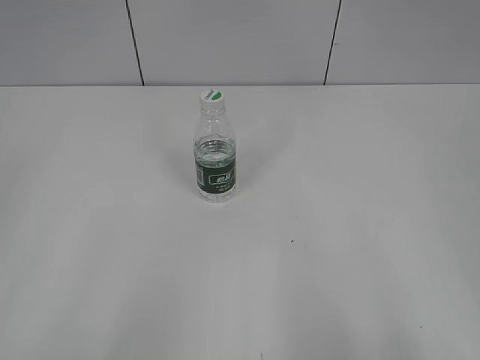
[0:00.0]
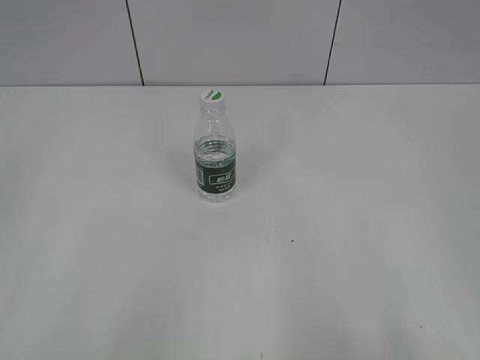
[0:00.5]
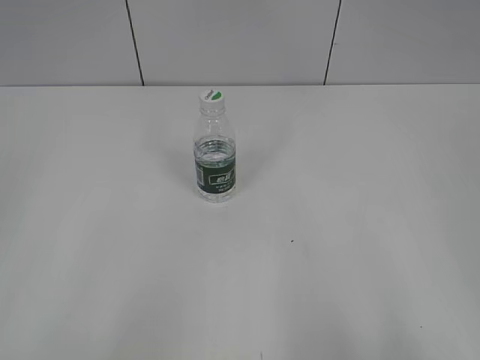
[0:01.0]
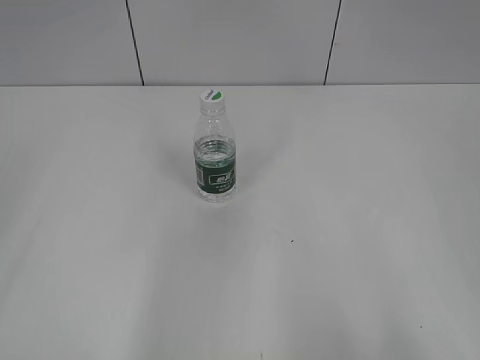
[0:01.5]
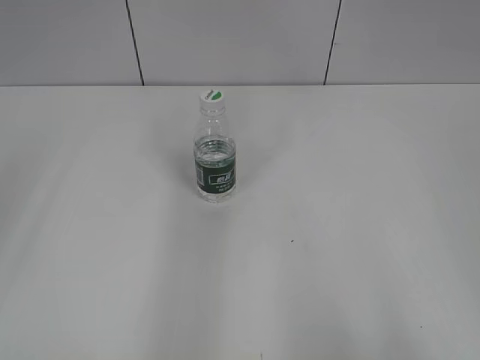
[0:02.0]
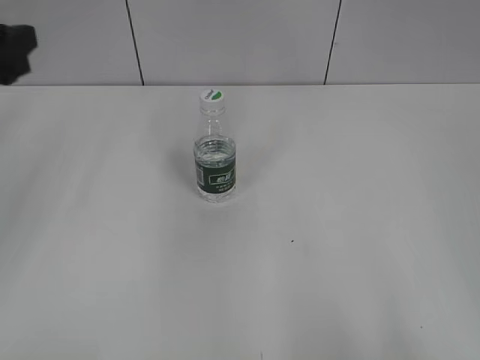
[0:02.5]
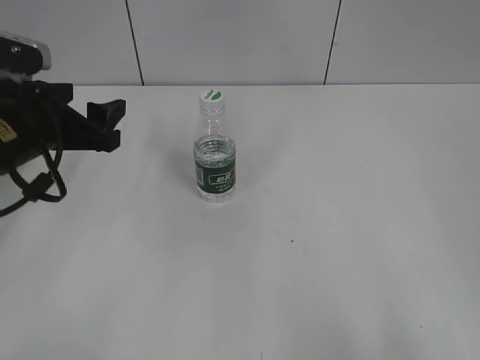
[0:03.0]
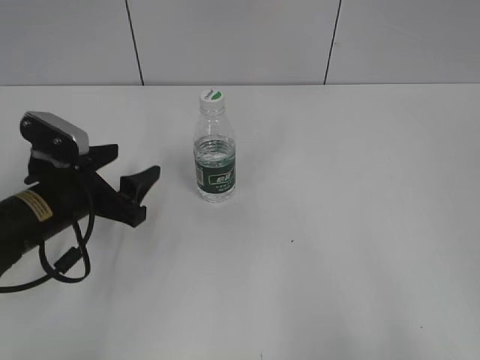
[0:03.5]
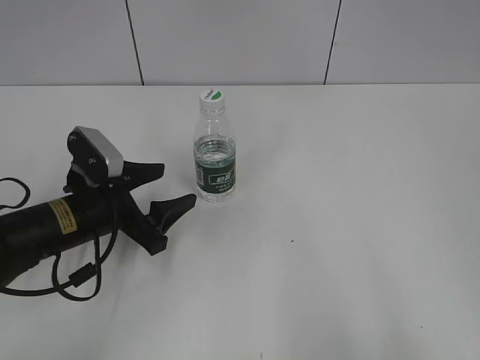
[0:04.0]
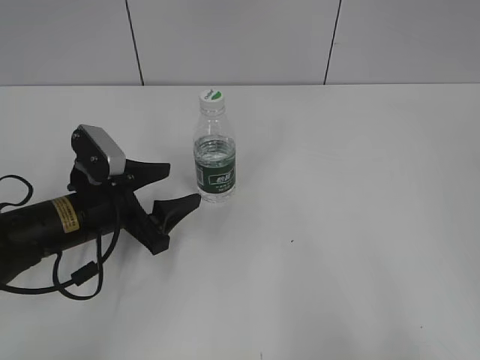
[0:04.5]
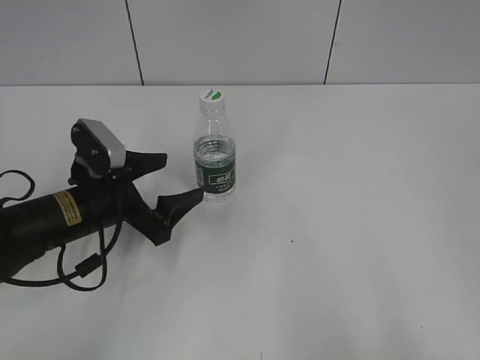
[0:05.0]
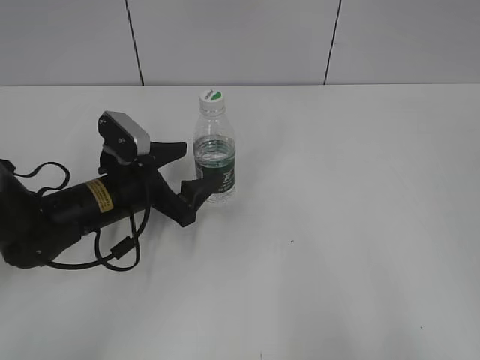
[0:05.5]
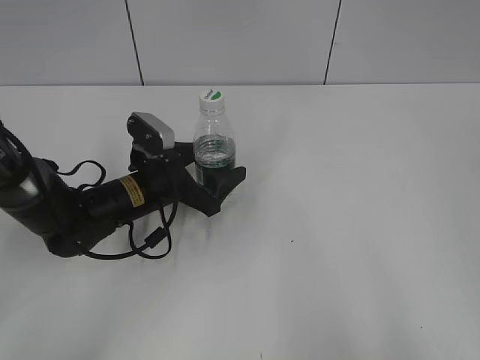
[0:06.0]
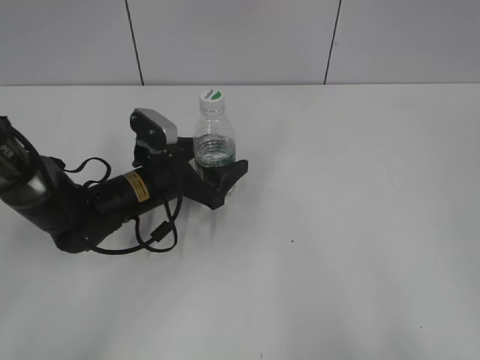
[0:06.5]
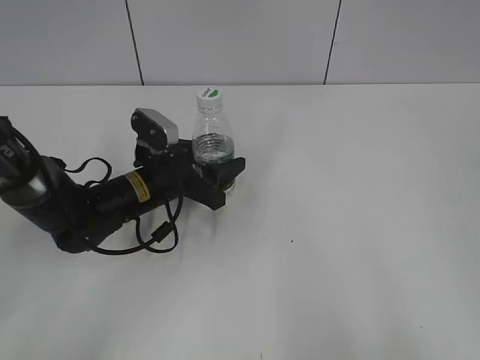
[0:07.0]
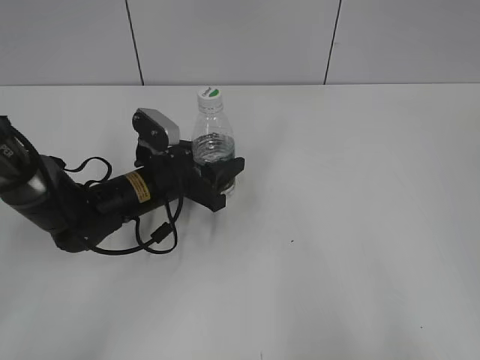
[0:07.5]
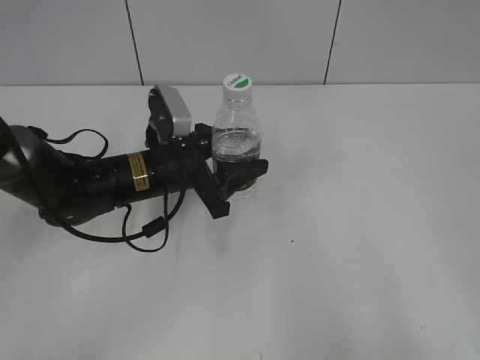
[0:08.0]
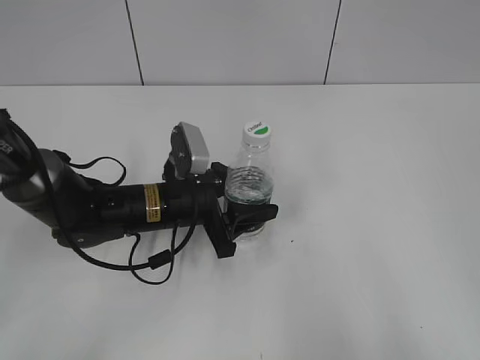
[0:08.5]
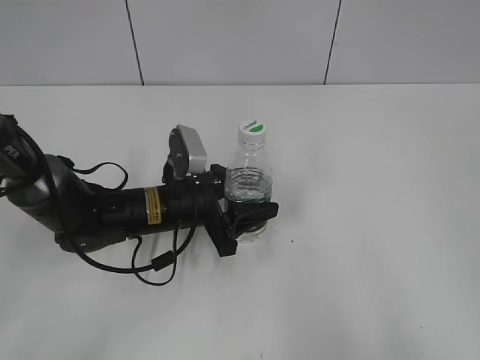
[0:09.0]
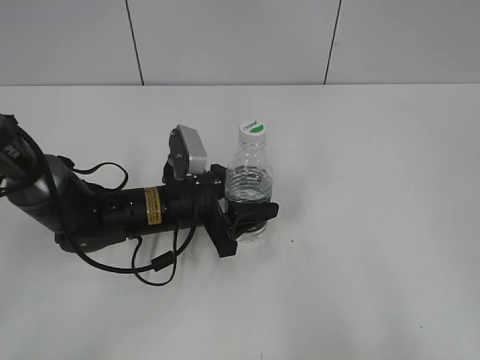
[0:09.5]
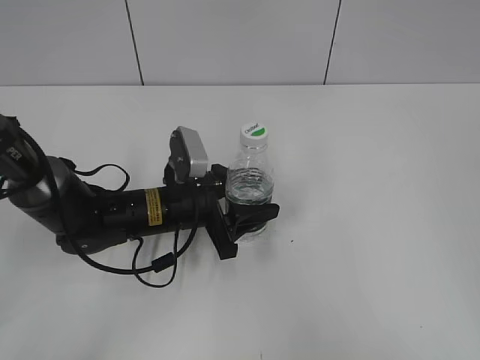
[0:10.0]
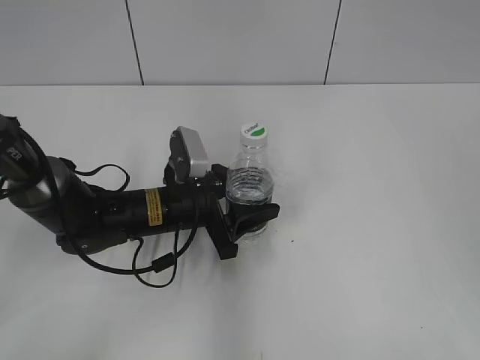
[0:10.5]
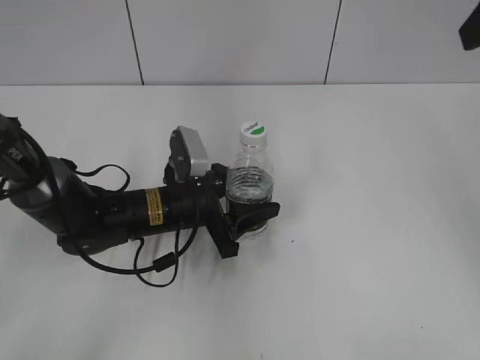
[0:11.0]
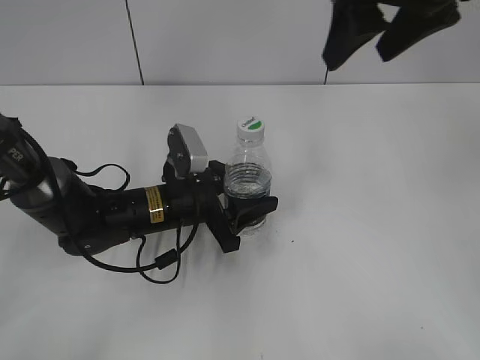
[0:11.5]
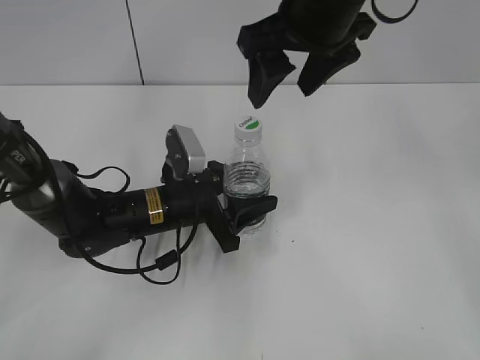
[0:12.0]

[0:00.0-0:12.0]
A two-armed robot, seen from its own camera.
Step, 0:00.0 to 0:07.0: Grasp the bottle and move it to the center of the table with the left gripper.
0:02.0 to 0:04.0: The left gripper is displaced downward, forward and to the right by approximately 30 cm.
0:04.0 to 0:06.0: The left gripper heads forward and to the right, covering roughly 10 cm, and opens.
0:06.0 to 0:08.0: The left gripper ends up some 5 cm from where it was, and closes up.
0:08.0 to 0:10.0: The left gripper moves about 5 cm.
0:10.0 to 0:12.0: The right gripper goes some 40 cm forward and to the left.

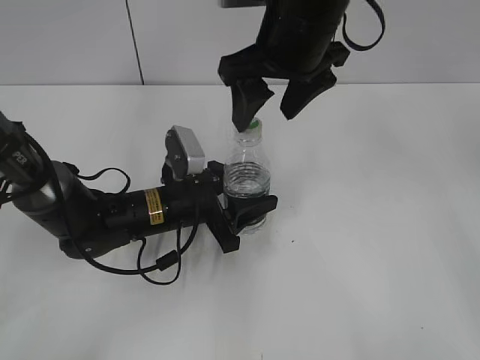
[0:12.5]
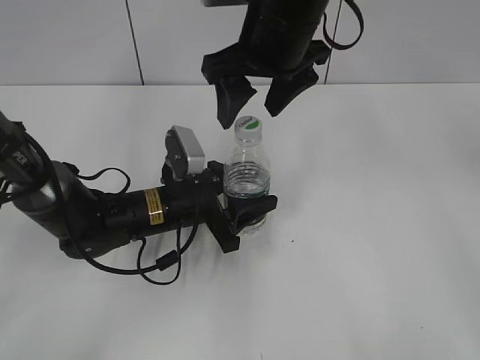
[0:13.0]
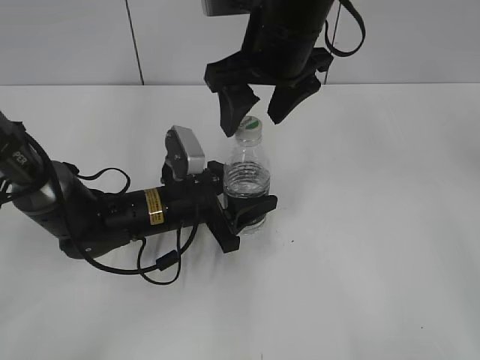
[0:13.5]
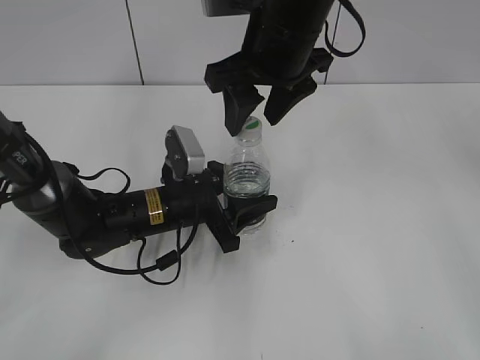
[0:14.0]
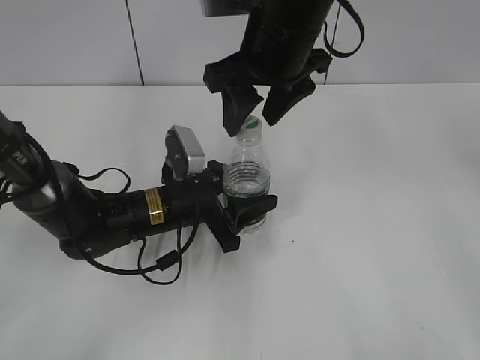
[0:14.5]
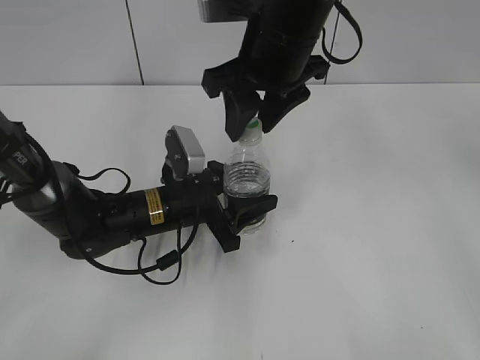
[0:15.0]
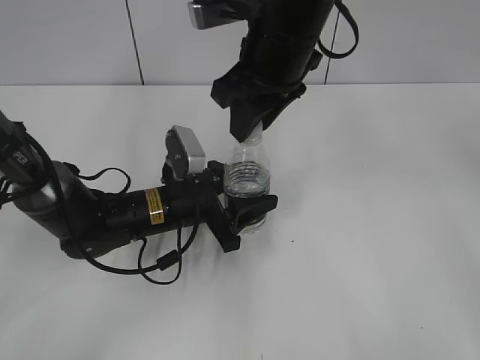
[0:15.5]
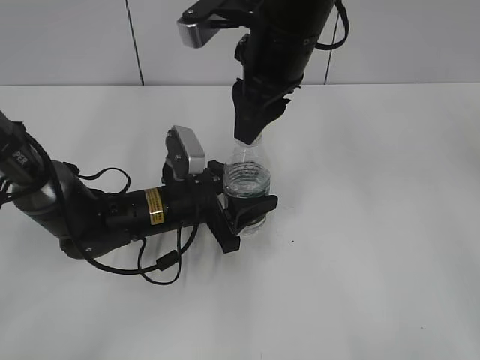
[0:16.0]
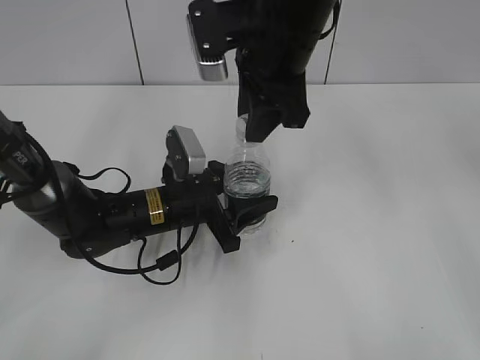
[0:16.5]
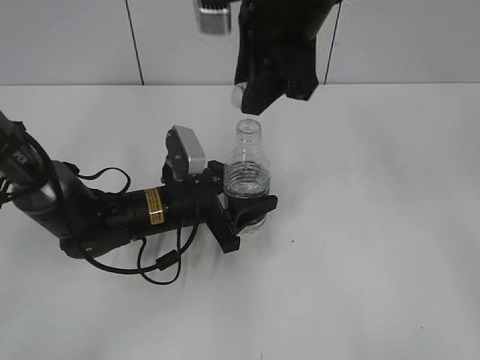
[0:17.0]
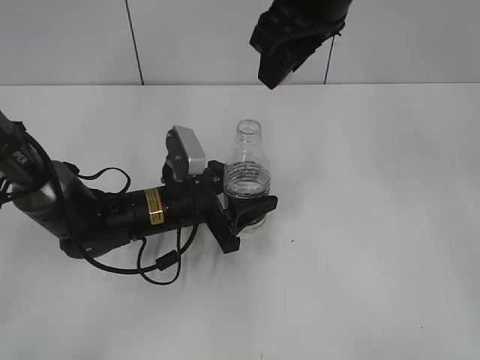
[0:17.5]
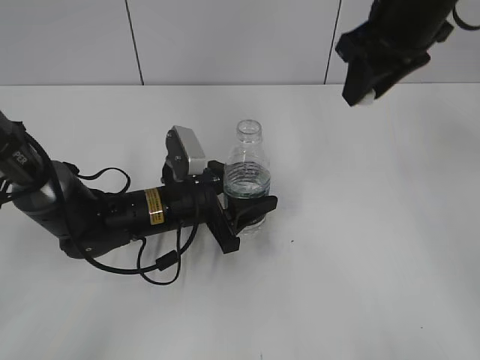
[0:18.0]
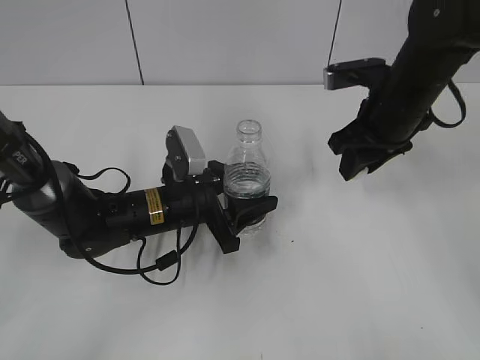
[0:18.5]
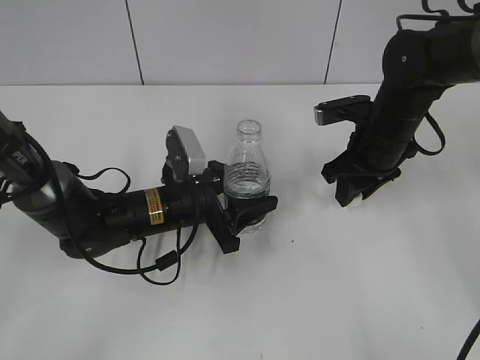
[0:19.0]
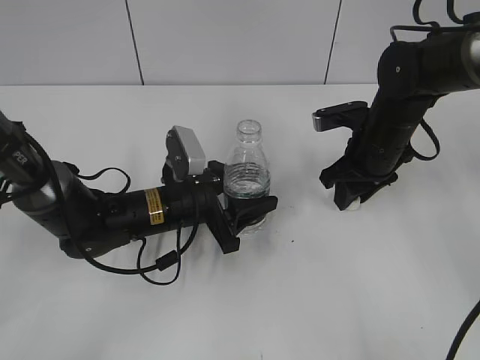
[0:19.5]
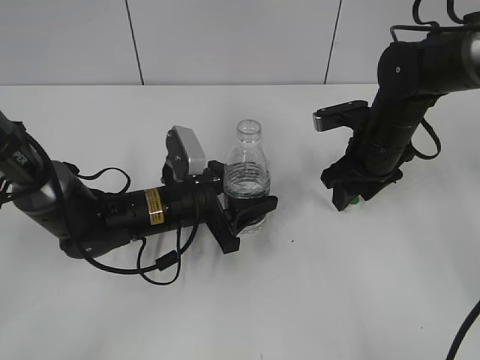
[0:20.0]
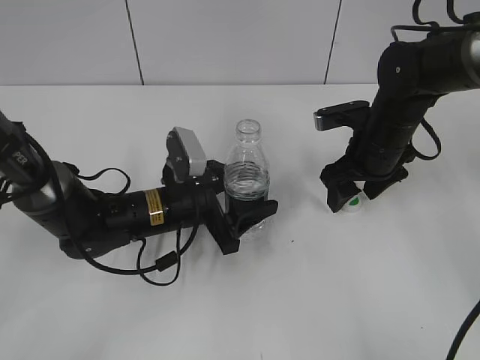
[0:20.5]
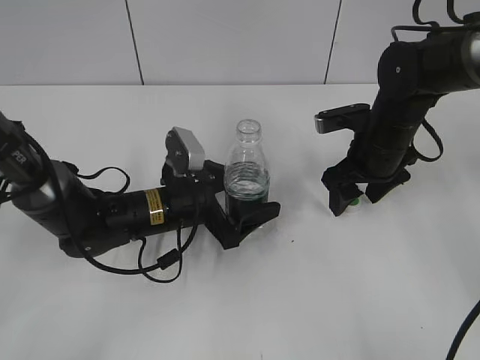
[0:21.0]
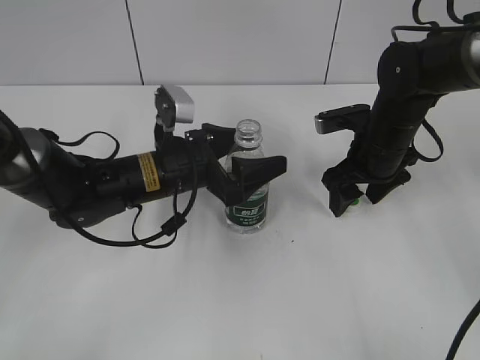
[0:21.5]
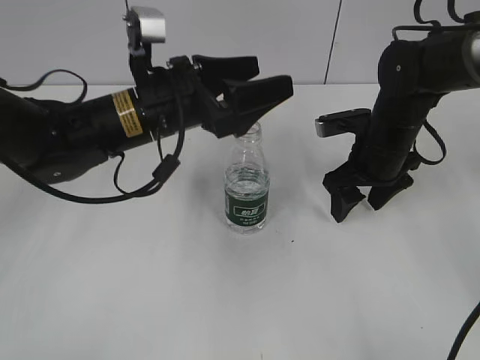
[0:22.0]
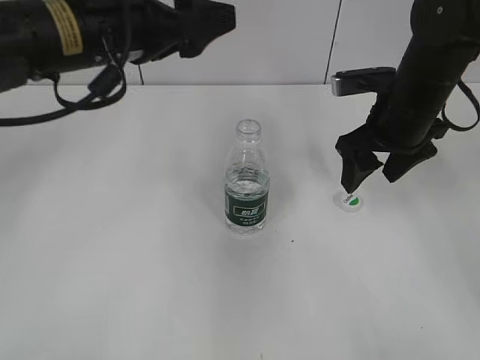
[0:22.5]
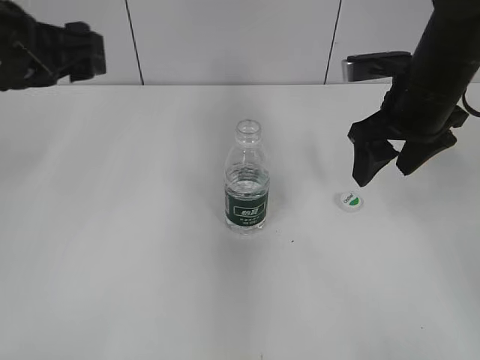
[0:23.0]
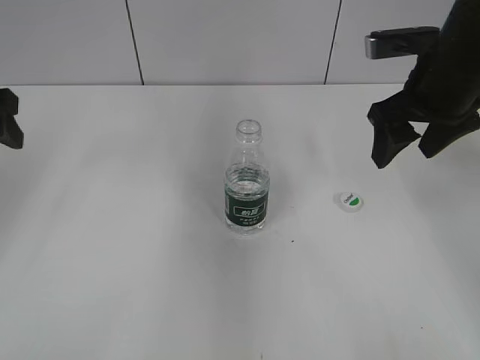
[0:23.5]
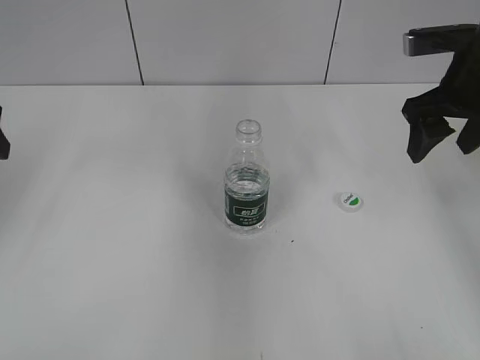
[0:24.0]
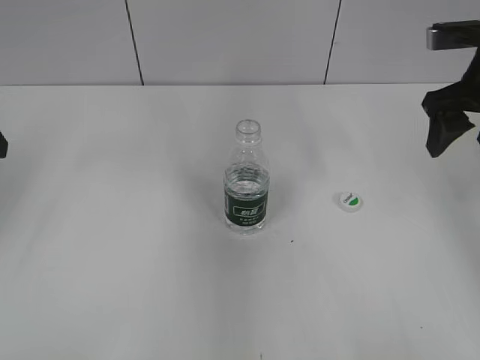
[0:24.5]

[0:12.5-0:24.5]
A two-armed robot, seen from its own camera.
Step, 0:12.5 to 0:17.0: Unscrew the bottle cap with the right gripper while holding the bottle with the left gripper.
Step, 0:17.5 to 0:20.0: Place the bottle cap on the table with the right gripper.
0:12.5 to 0:14.5: The right gripper closes up.
0:14.5 to 0:16.5: The right gripper closes its fingers.
0:16.5 to 0:18.5: The right gripper shifts some 15 cm to the right and downward.
0:18.5 to 0:20.5: The right gripper moves downward, approximately 5 cm, and opens.
0:20.5 to 0:22.5: The right gripper travels upward by some 5 cm. Meanwhile the left gripper travels upward by about 25 cm, and opens up.
0:22.5 to 0:24.5: The right gripper travels to the right and upward by about 10 cm. The left gripper heads to the left, covering approximately 20 cm.

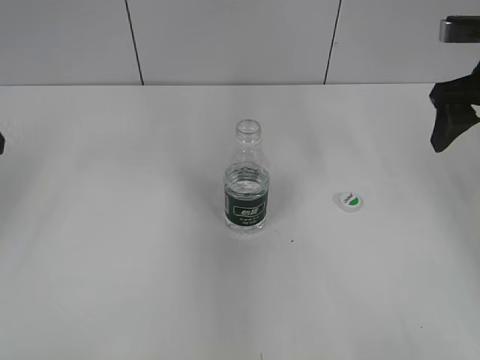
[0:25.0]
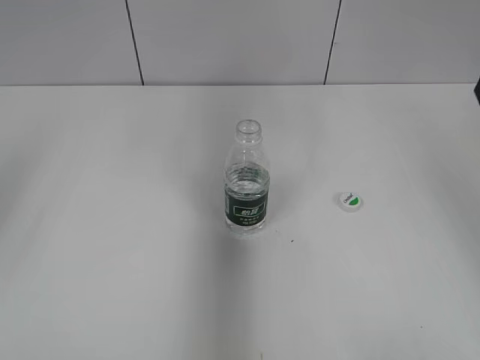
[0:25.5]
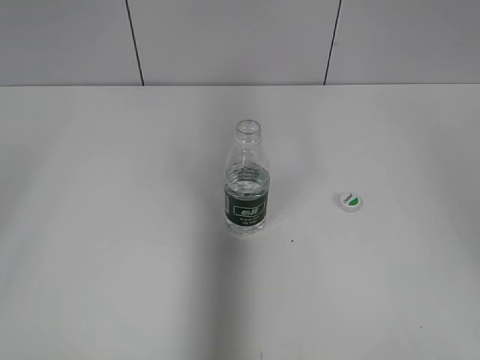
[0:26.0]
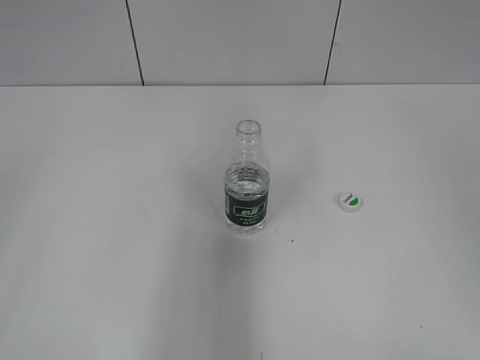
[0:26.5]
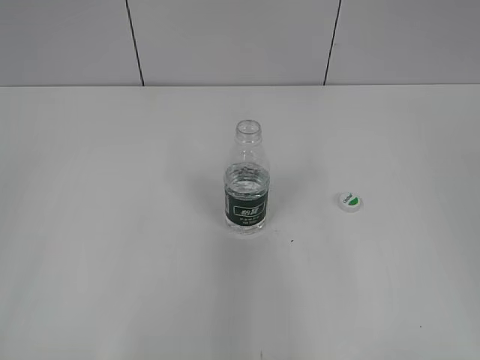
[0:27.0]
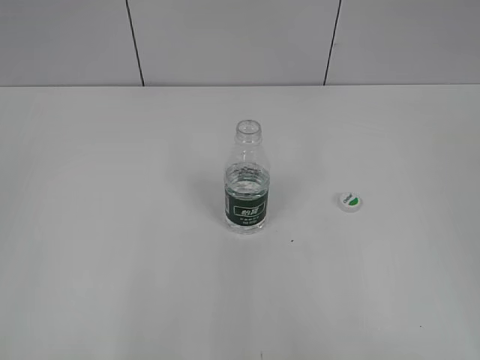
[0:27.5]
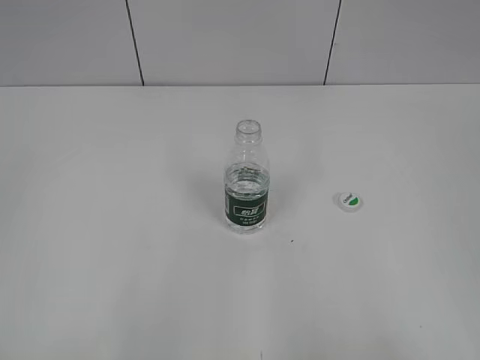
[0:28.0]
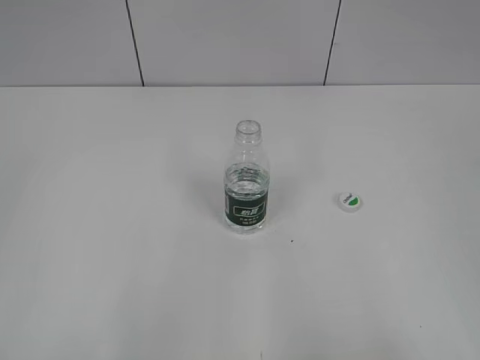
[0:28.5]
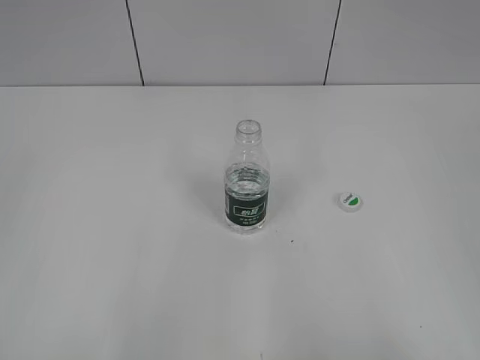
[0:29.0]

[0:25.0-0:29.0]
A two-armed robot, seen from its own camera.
0:25.0 to 0:27.0: The right gripper goes roughly 30 cm backward.
0:27.0 to 0:29.0: The left gripper closes its fingers. Meanwhile the right gripper shifts about 10 cm downward and backward.
